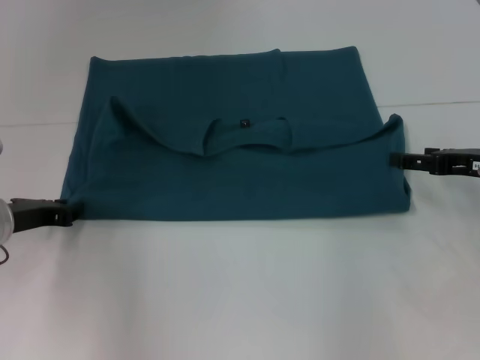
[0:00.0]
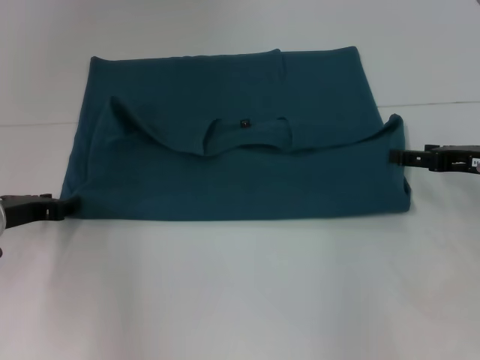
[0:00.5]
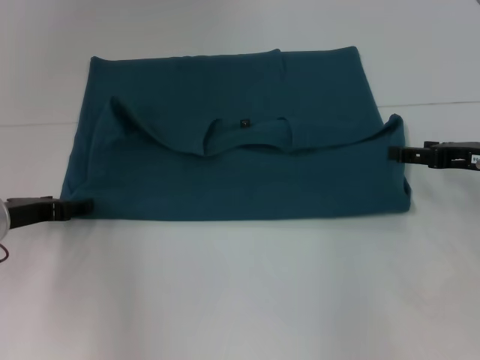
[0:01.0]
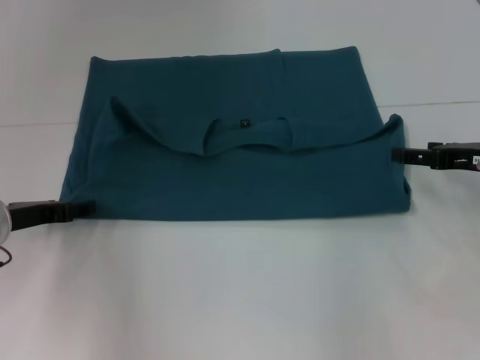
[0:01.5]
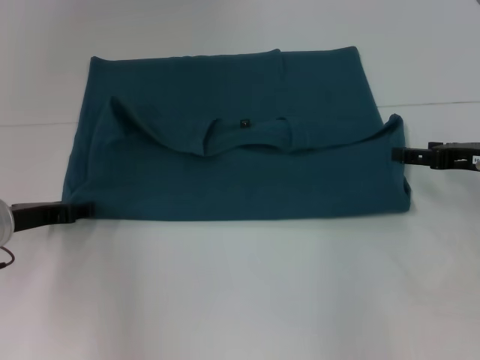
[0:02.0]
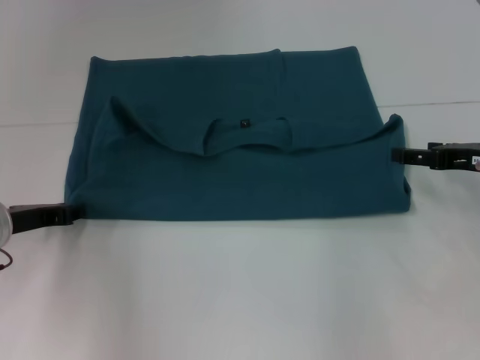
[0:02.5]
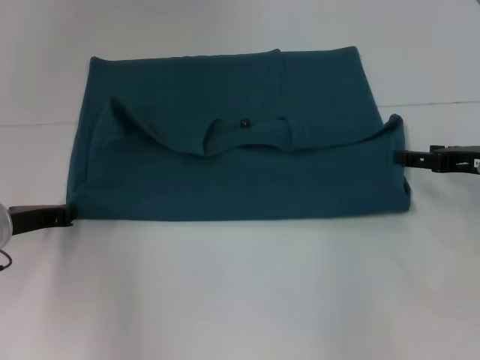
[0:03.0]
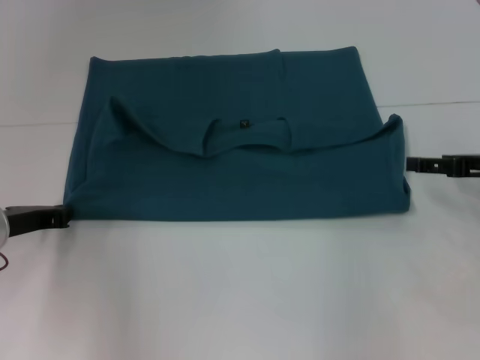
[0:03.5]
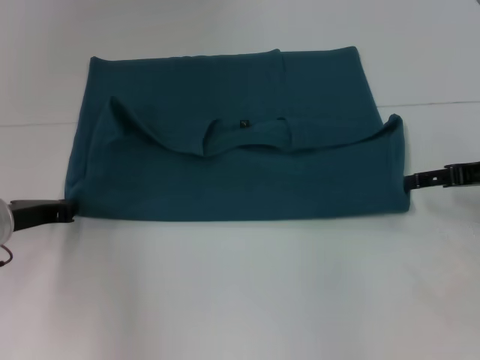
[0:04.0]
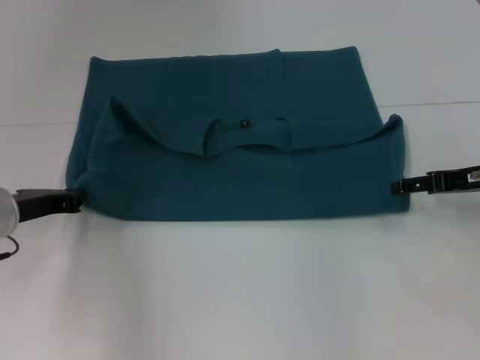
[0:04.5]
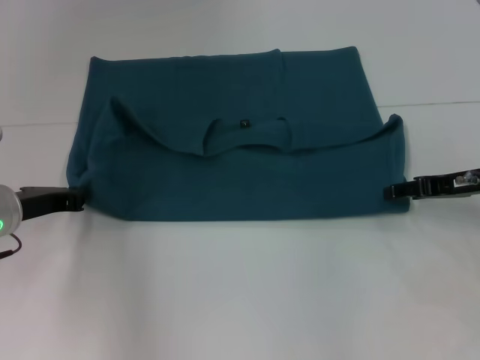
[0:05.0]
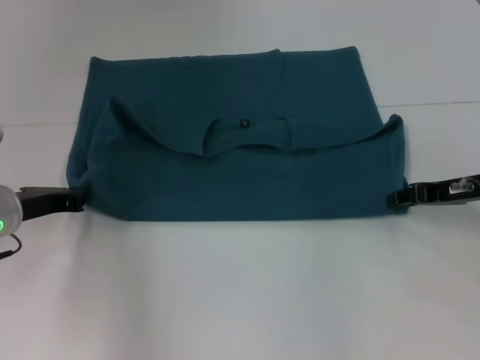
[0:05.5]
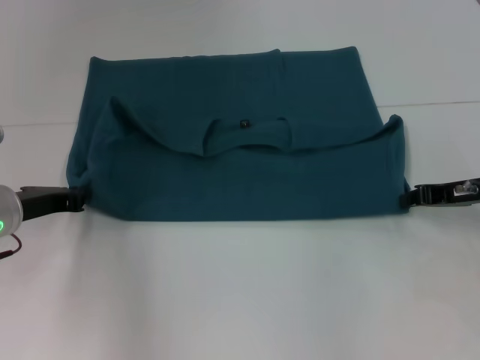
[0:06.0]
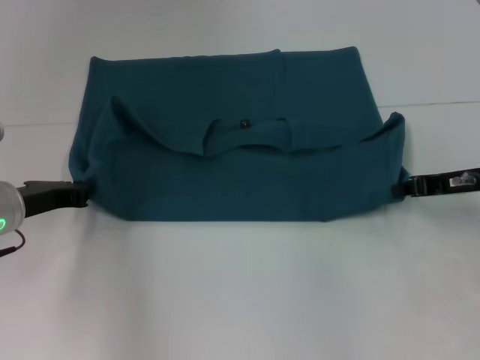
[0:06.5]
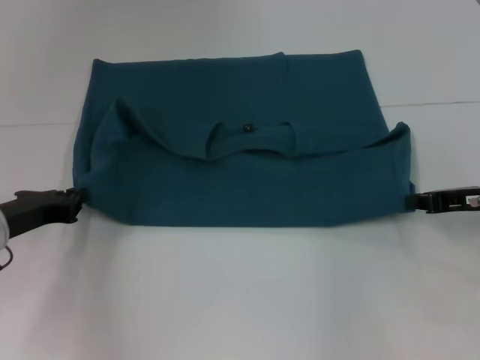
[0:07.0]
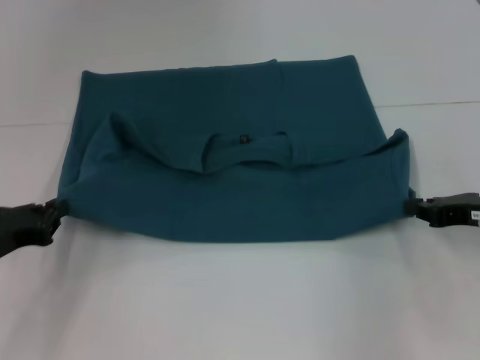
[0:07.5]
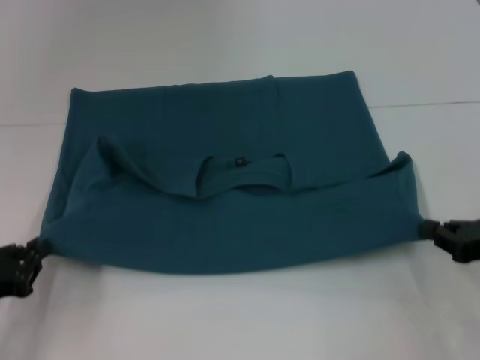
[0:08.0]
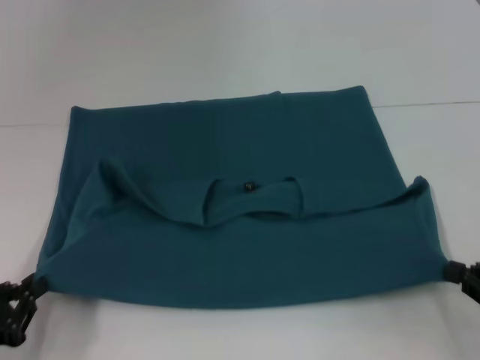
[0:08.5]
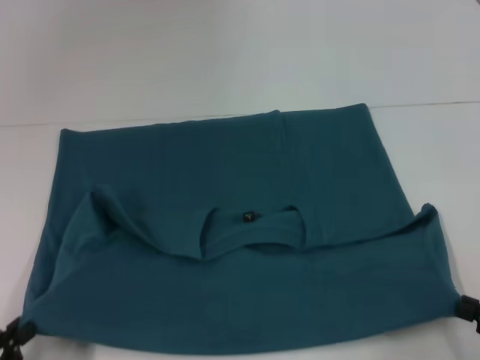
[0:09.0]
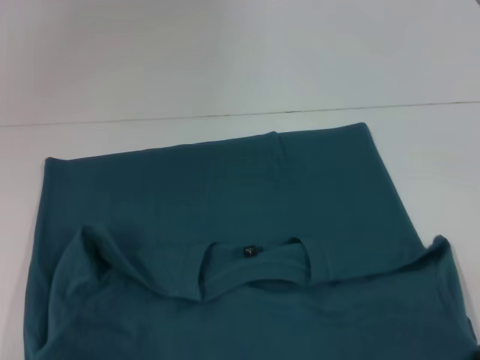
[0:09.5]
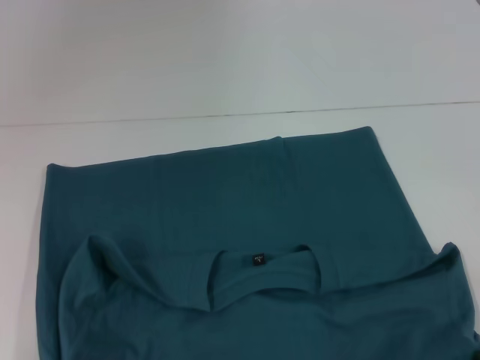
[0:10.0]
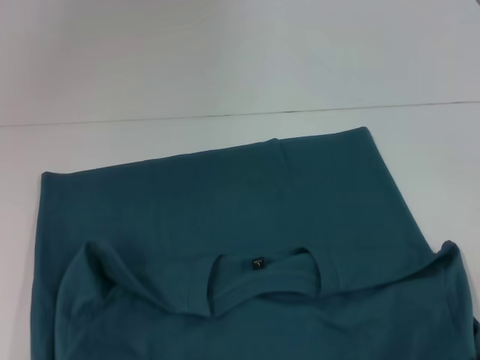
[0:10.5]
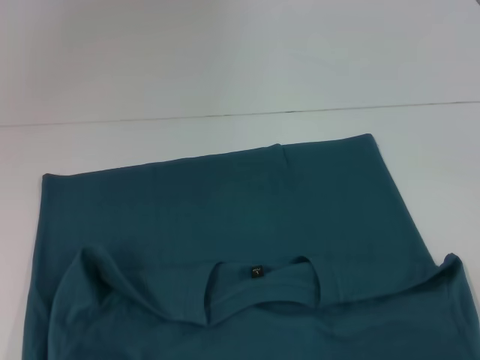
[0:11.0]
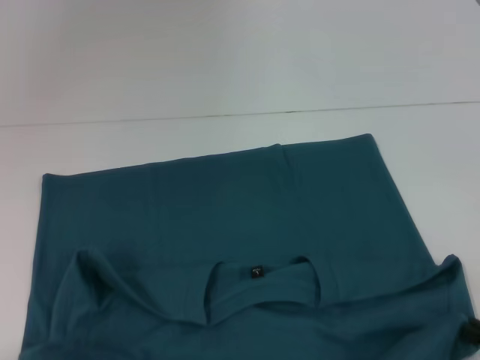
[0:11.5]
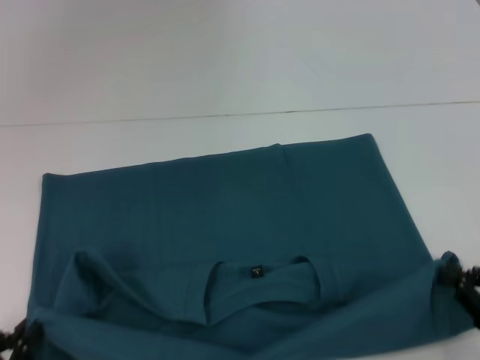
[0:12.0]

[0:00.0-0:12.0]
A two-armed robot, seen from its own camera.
Step, 0:00.0 to 0:09.5: Pull the clothes with your left hand.
Step, 0:00.0 to 0:09.5: Pull the clothes with your right hand.
0:00.0 to 0:02.0: The grippers move only a little.
0:04.0 to 0:06.0: The right gripper closes.
0:06.0 to 0:08.0: The right gripper heads backward, covering about 10 cm, while the left gripper goes approximately 15 cm backward and to the left.
0:08.0 to 0:10.0: Both grippers travel together backward, about 15 cm.
0:10.0 to 0:12.0: The right gripper heads forward, covering some 5 cm.

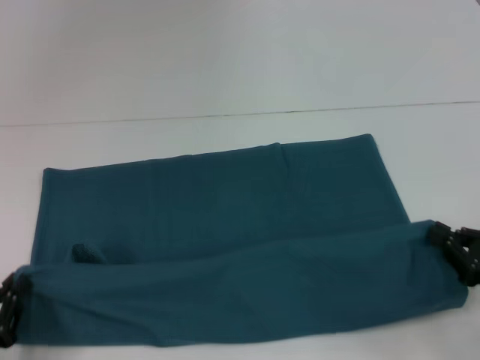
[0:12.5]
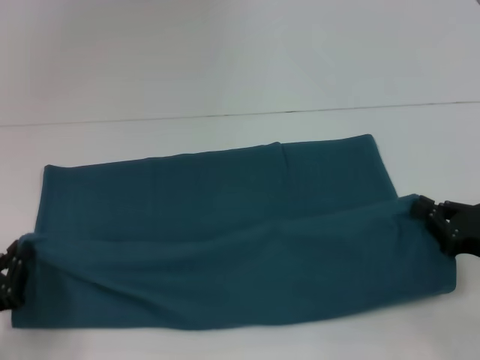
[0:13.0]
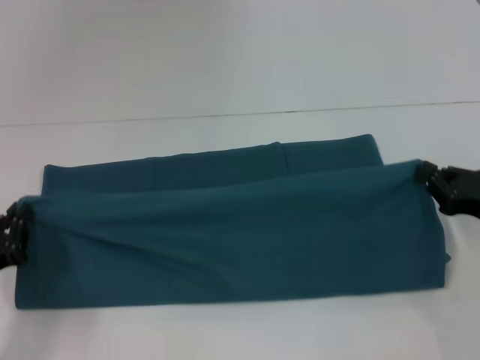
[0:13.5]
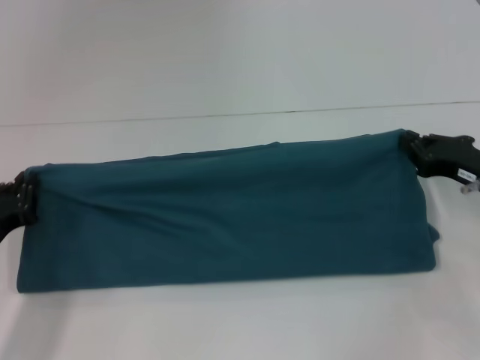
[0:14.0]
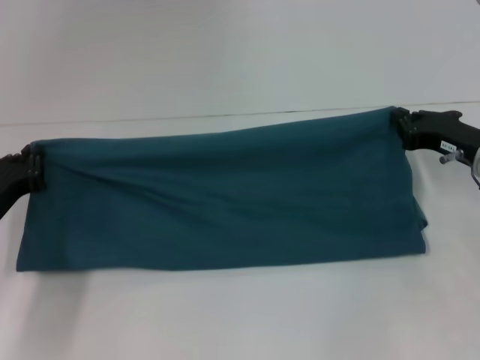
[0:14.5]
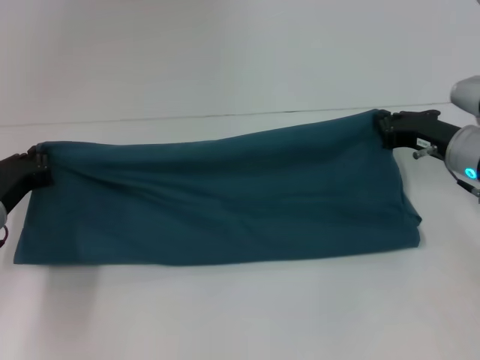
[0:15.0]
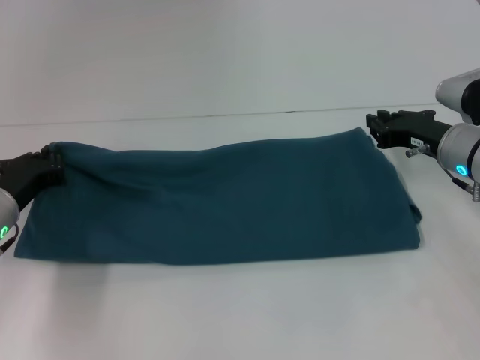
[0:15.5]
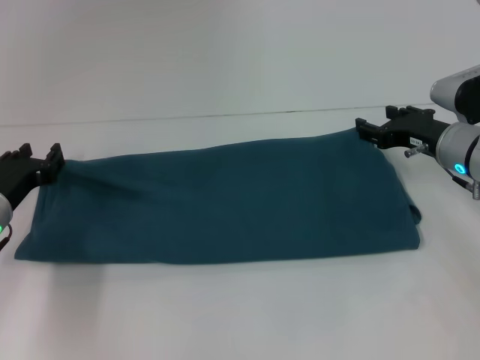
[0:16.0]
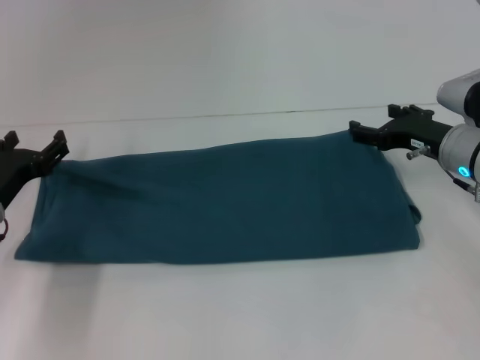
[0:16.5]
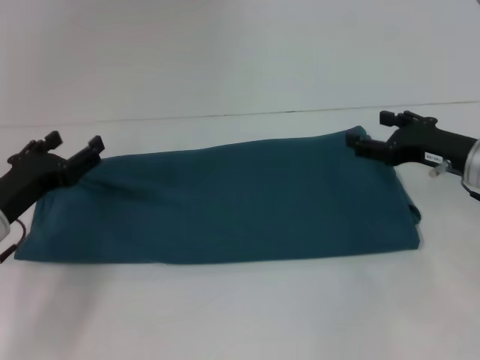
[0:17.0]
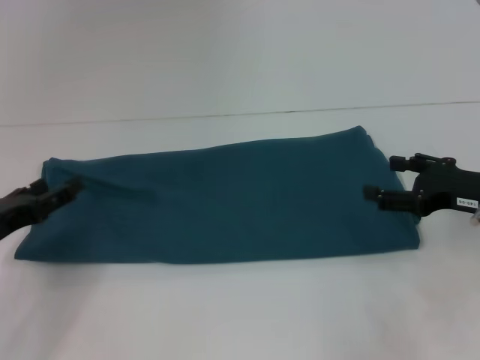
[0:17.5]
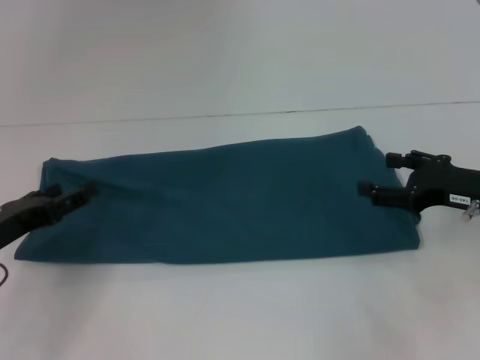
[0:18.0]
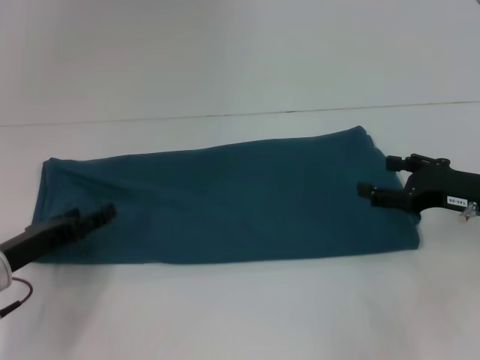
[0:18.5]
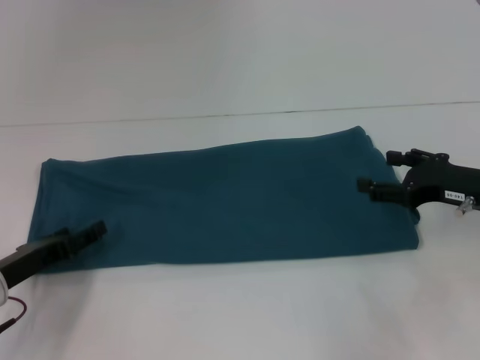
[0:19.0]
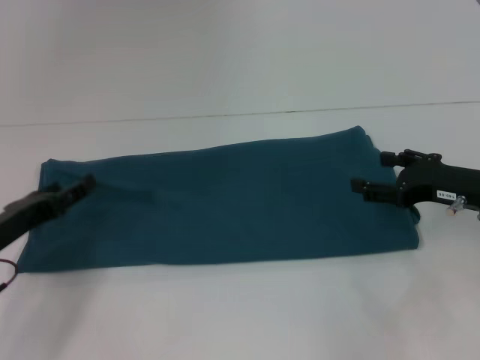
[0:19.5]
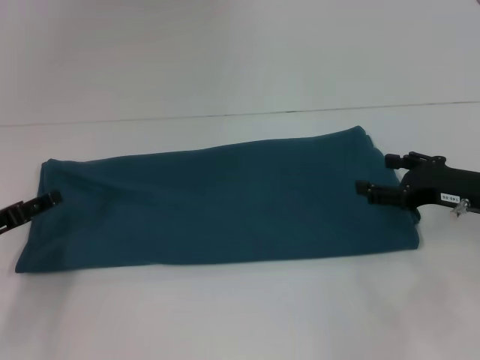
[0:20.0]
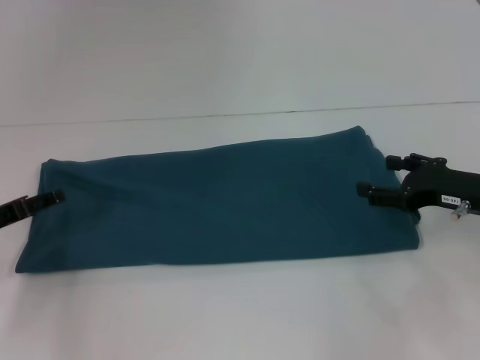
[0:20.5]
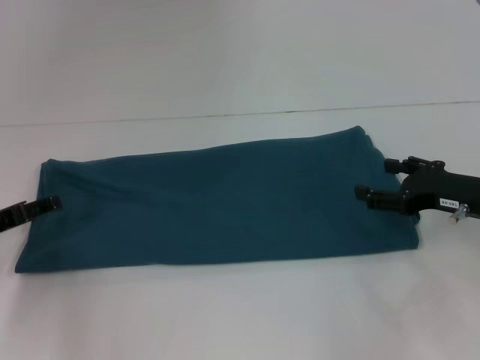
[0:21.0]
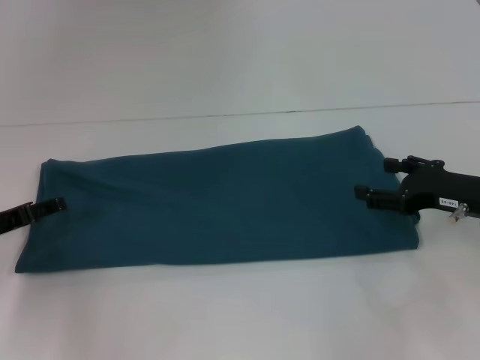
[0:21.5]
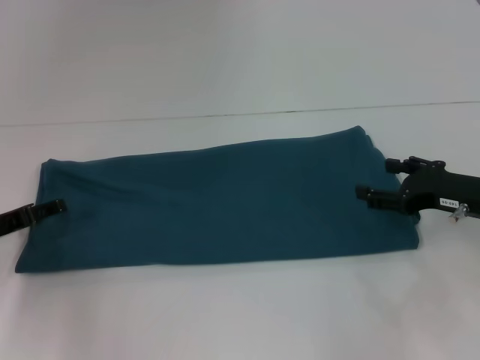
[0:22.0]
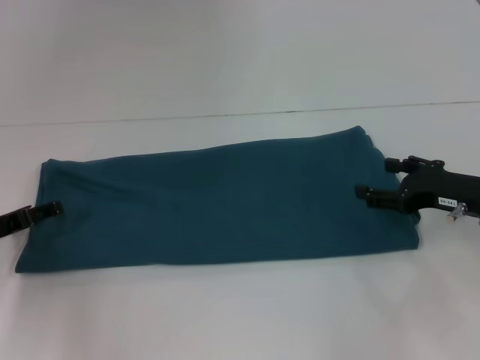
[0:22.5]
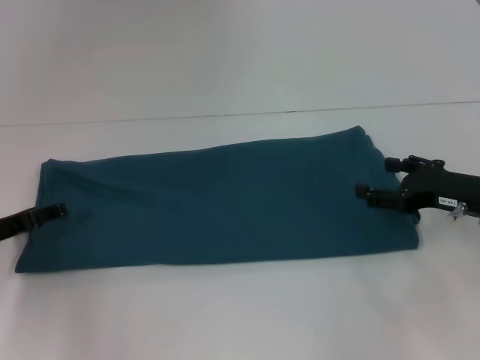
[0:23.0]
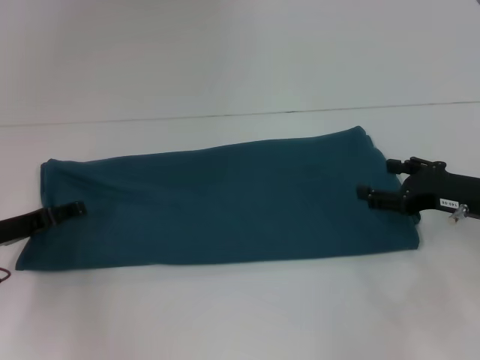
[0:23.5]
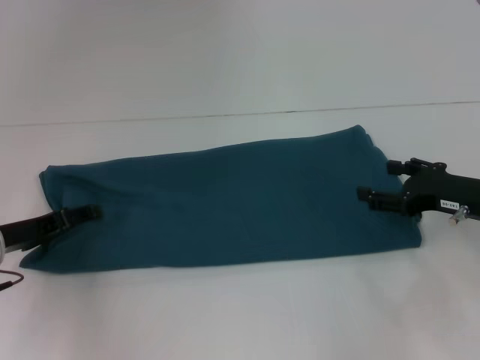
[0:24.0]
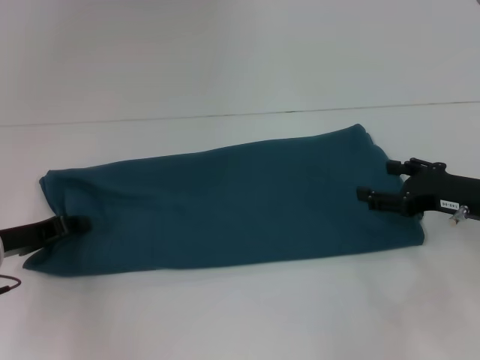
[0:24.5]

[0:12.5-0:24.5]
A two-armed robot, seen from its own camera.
Step, 0:12.5 to 0:15.5: Fold the clothes to the right.
0:12.5 to 0:14.5: Both grippers travel together forward, some 15 cm.
0:14.5 to 0:16.5: The right gripper opens, while the left gripper opens.
0:16.5 to 0:18.5: The right gripper heads backward, covering roughly 5 cm.
0:18.5 to 0:20.5: The left gripper changes place by approximately 5 cm.
0:20.5 to 0:22.5: The grippers stay close to where they were, moving slightly.
0:22.5 to 0:24.5: The left gripper closes.

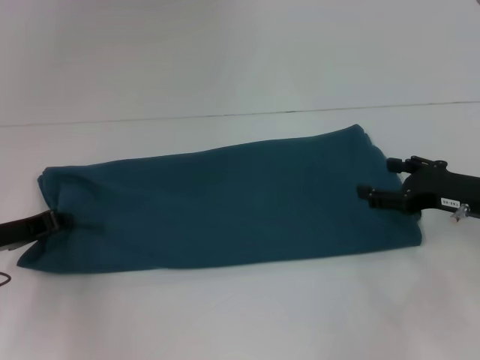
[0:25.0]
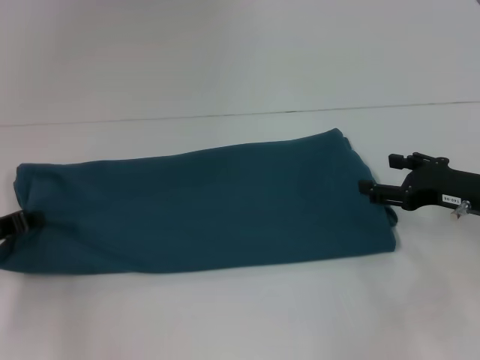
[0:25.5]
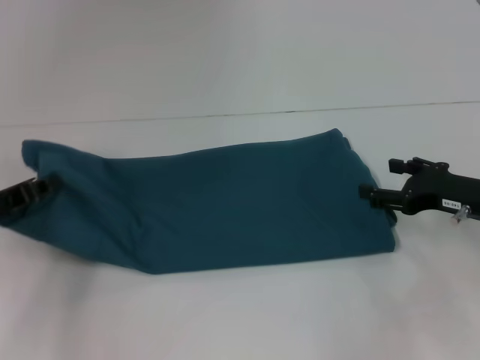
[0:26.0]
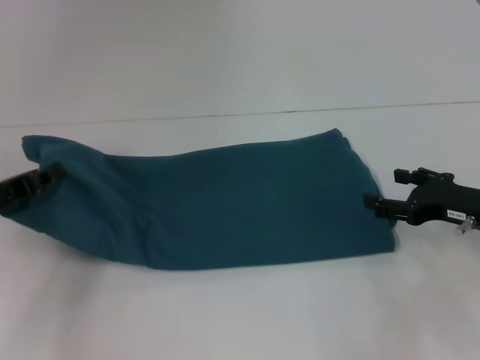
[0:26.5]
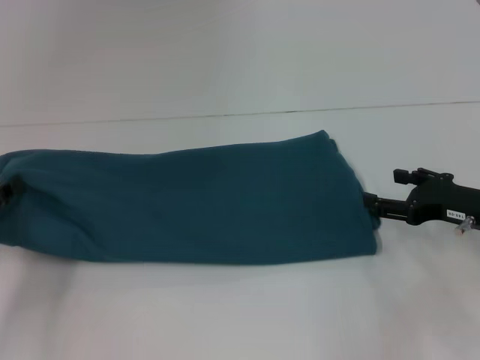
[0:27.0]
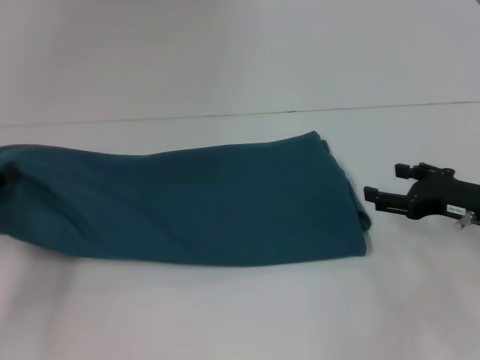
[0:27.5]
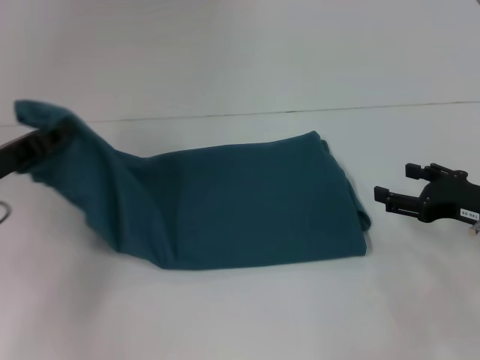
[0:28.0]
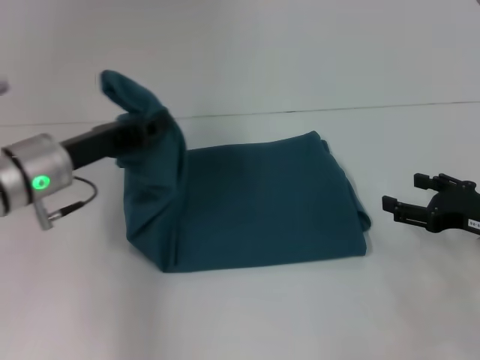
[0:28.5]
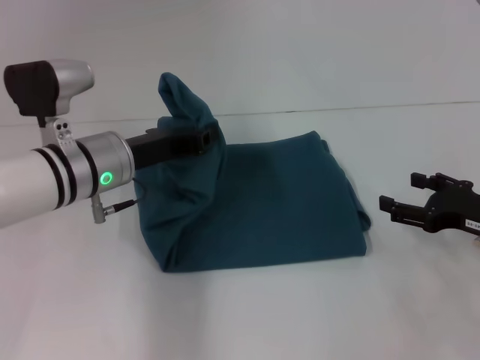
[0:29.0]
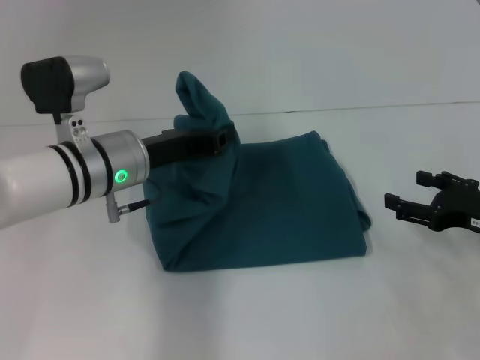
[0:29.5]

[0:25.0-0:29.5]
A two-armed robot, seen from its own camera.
0:25.0 to 0:27.0: The left gripper ends up roughly 5 cm from where it was.
0:27.0 to 0:29.5: The left gripper travels to the right by approximately 20 cm.
